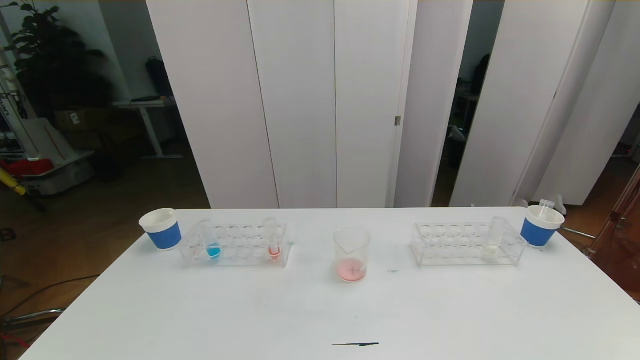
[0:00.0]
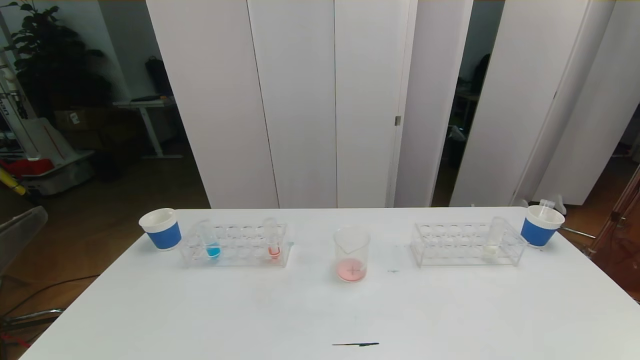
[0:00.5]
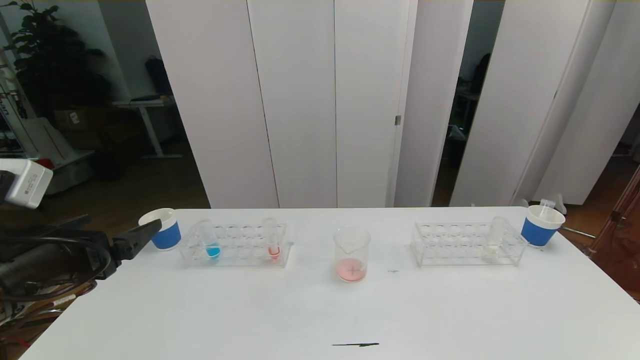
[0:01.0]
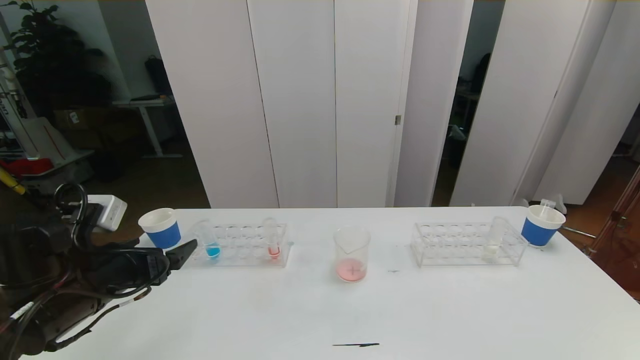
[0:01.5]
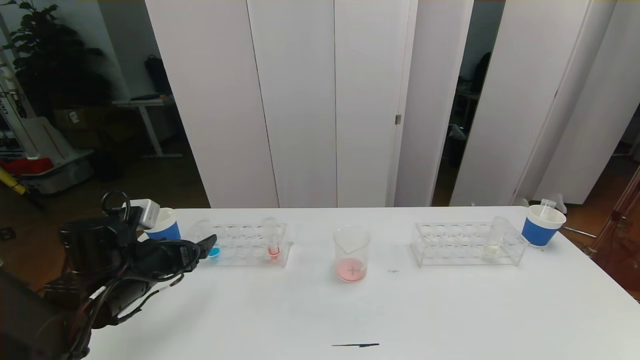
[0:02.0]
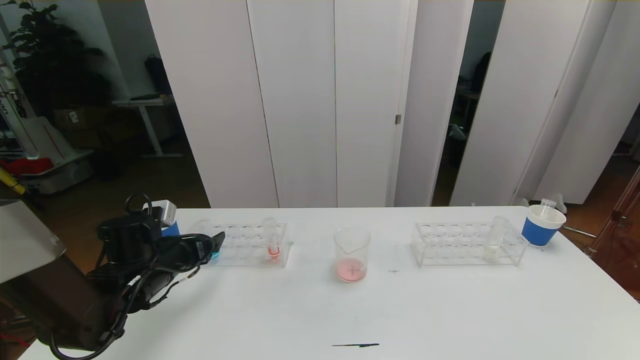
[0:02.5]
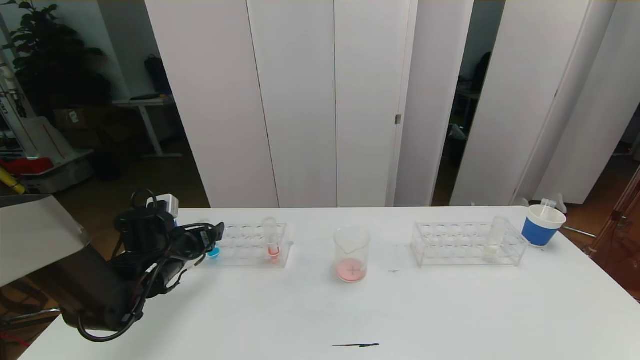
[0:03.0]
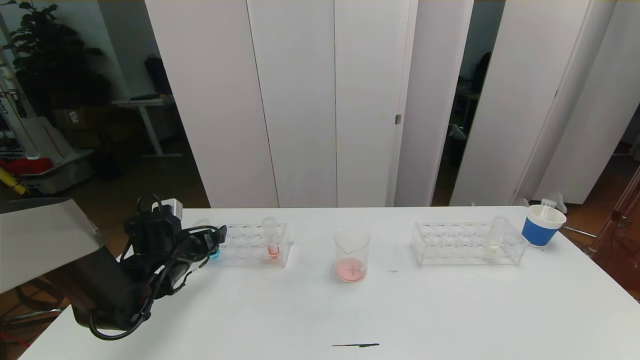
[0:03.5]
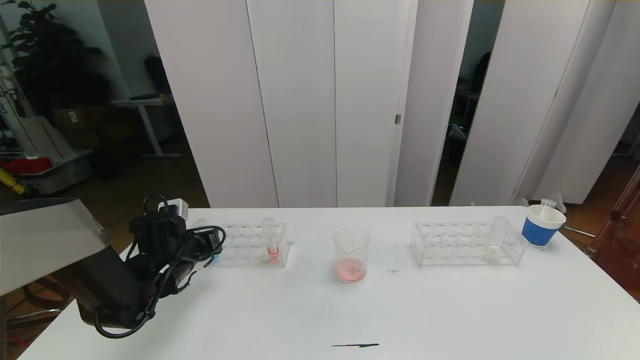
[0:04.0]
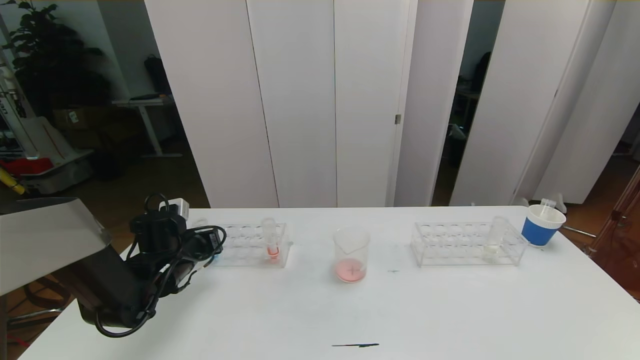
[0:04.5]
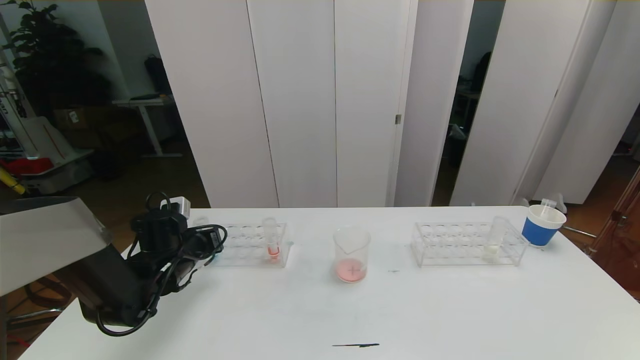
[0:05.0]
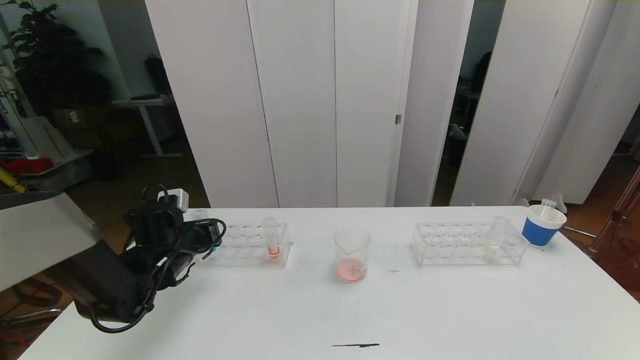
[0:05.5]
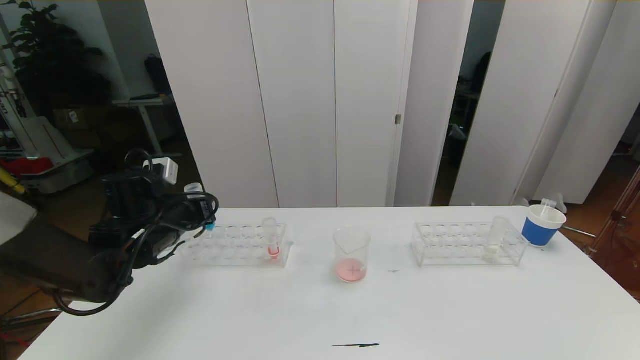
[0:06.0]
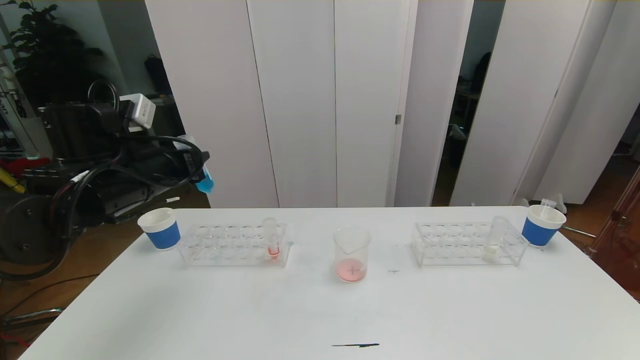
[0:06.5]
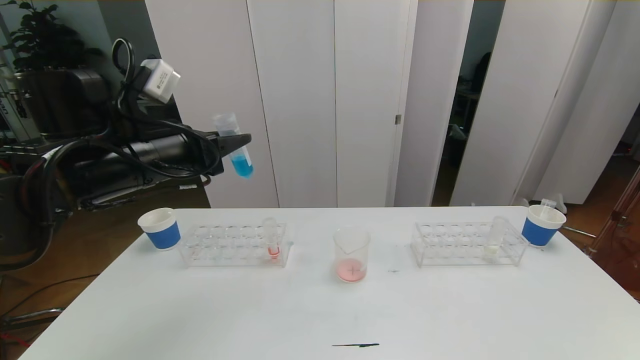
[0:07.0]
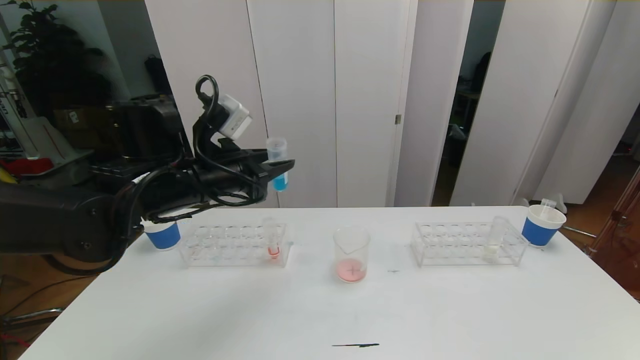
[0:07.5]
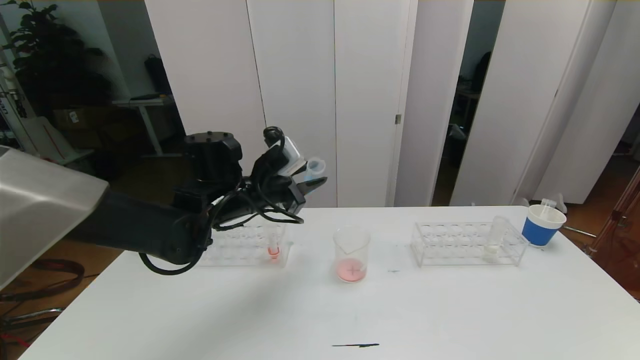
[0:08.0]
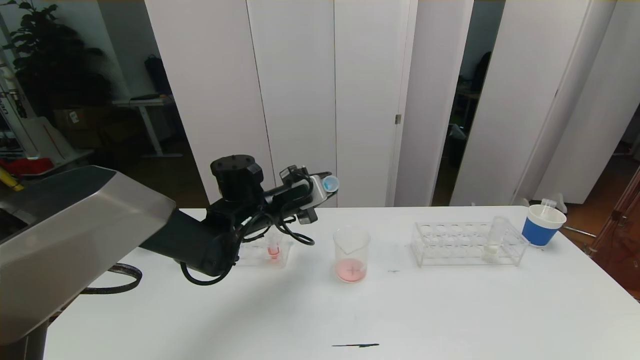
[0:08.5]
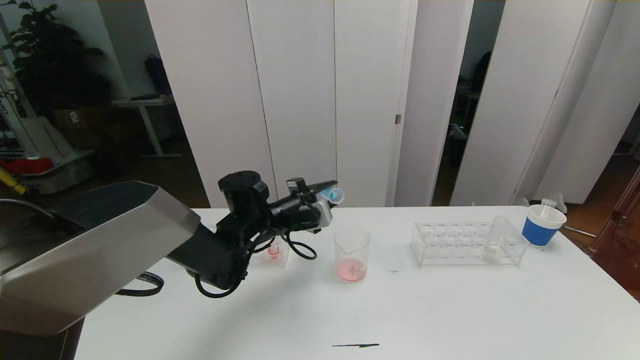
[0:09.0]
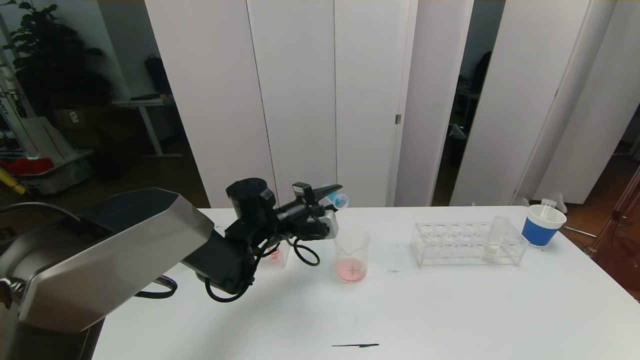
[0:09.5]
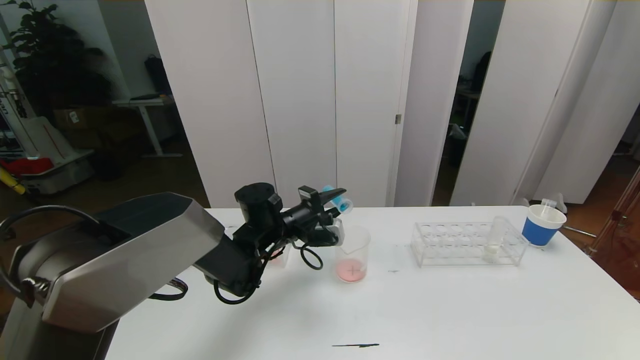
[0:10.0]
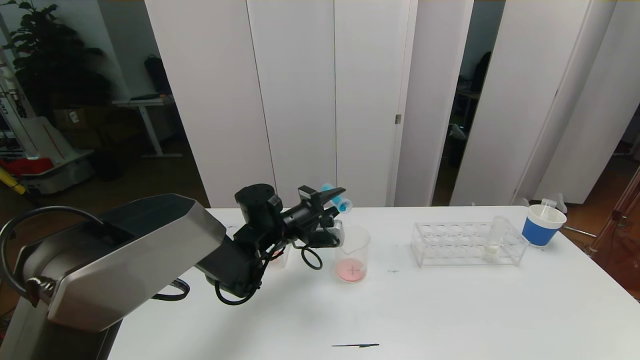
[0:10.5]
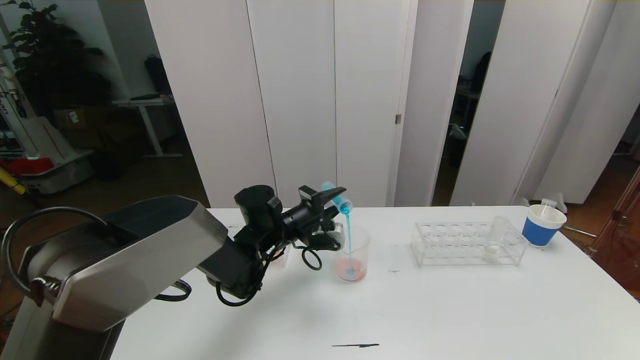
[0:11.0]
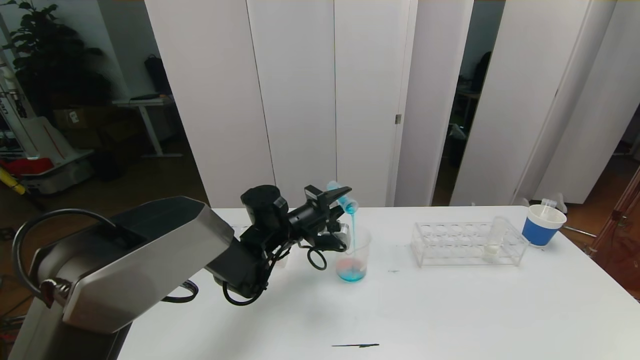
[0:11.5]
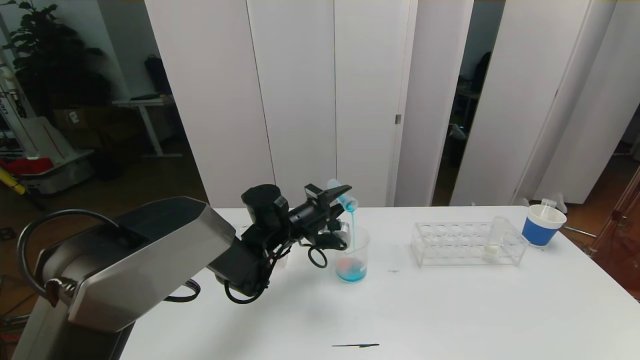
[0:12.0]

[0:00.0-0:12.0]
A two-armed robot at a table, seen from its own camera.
Task of the whole recording: pick up the test tube with red pigment the test tube with blue pigment and the test tube with white pigment by grippers and pour them into the beaker.
0:00.0 to 0:02.0: The left gripper goes approximately 35 cm forward and downward.
0:02.0 to 0:04.0: The left gripper is displaced forward by some 5 cm, and closes up.
0:04.0 to 0:06.0: The left gripper heads upward, covering approximately 10 cm.
0:06.0 to 0:08.0: The left gripper heads to the right, covering roughly 15 cm.
0:08.0 to 0:10.0: The left gripper is displaced downward by some 10 cm.
0:10.0 to 0:12.0: The grippers move only a little.

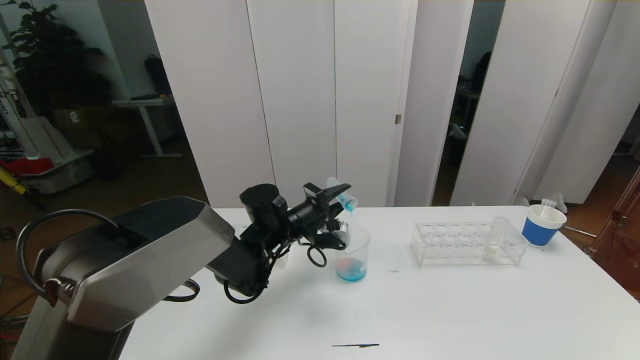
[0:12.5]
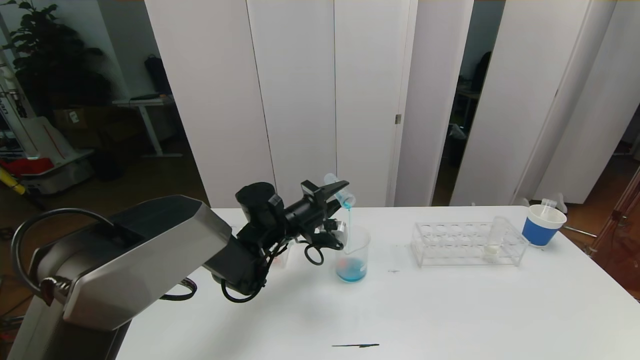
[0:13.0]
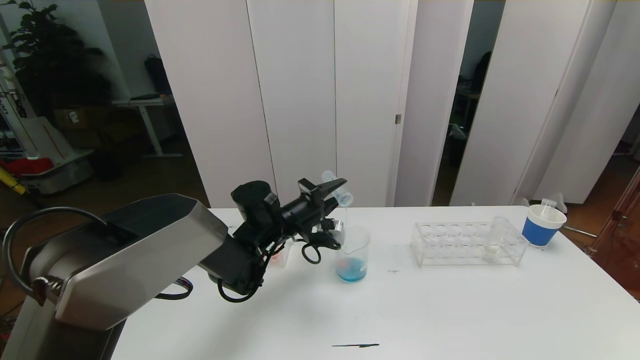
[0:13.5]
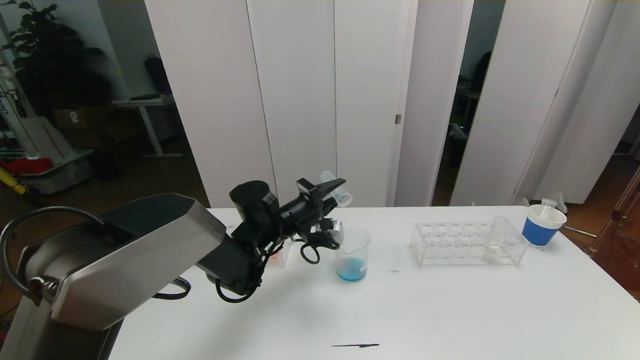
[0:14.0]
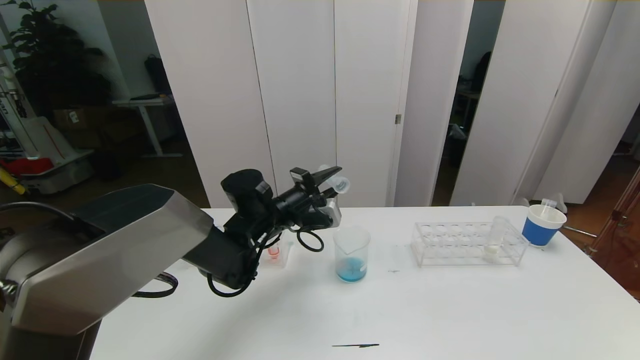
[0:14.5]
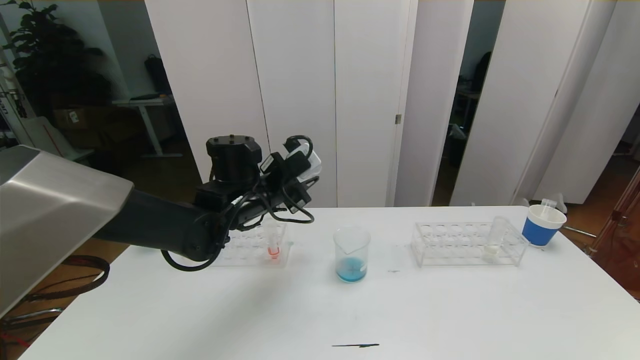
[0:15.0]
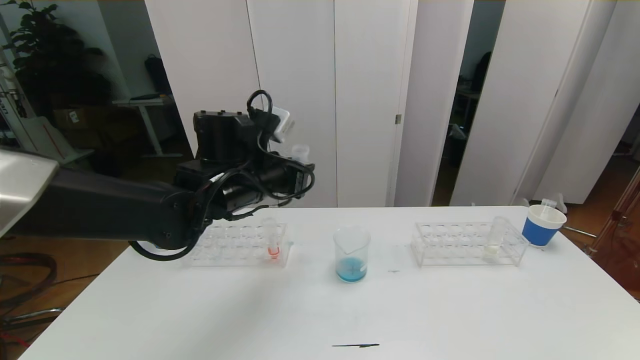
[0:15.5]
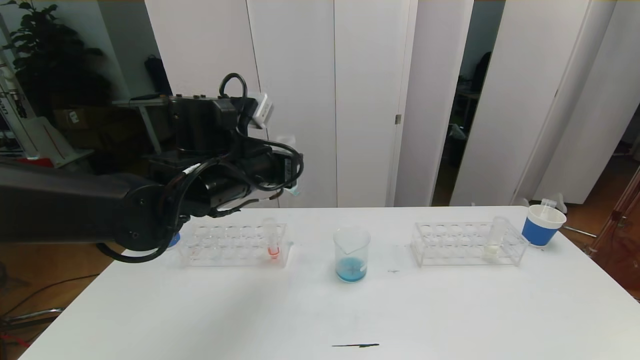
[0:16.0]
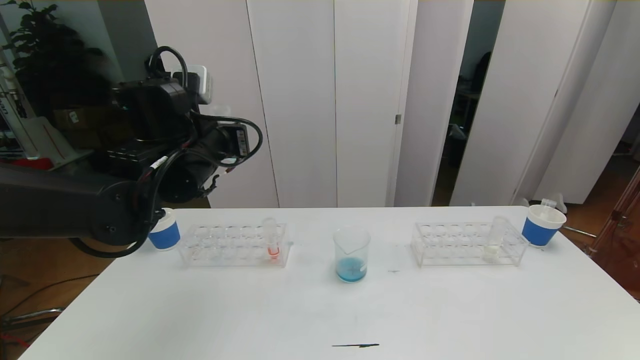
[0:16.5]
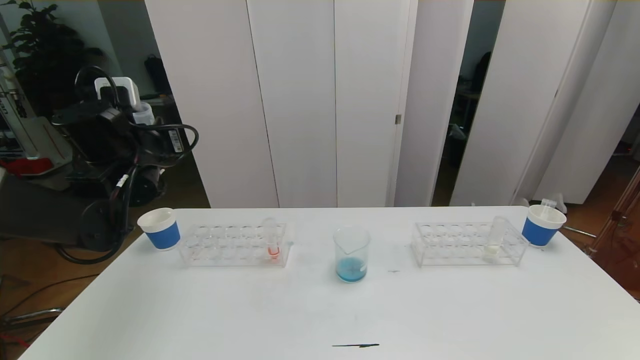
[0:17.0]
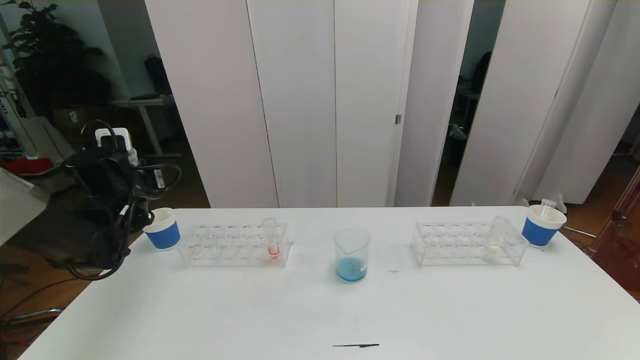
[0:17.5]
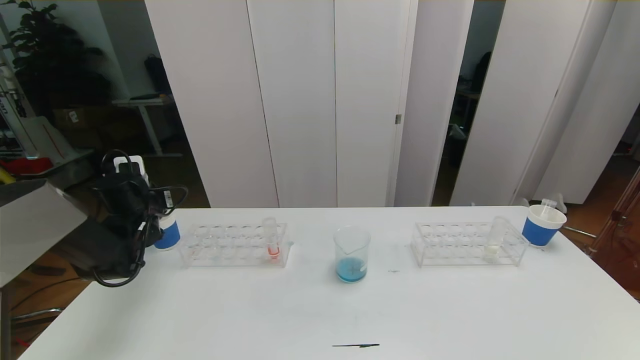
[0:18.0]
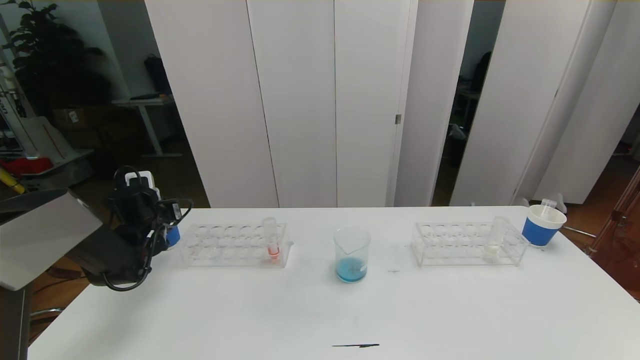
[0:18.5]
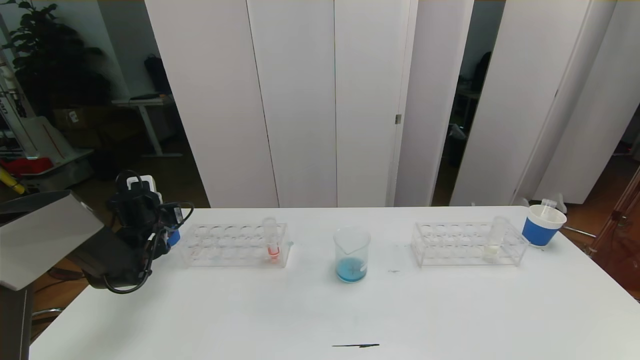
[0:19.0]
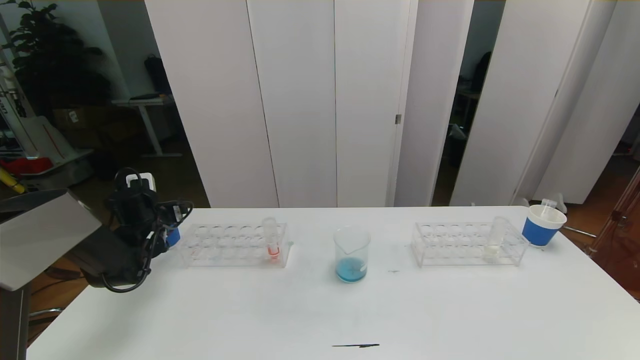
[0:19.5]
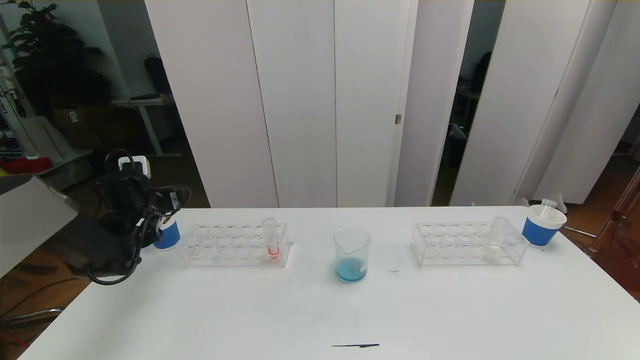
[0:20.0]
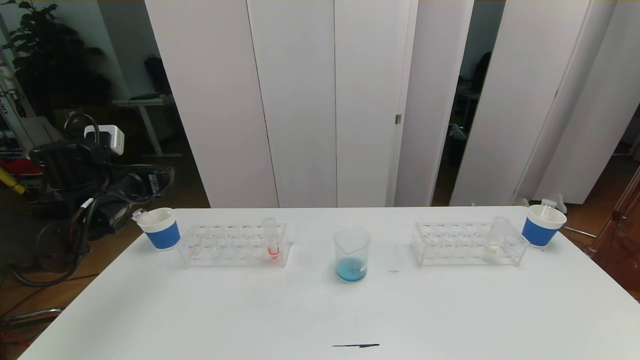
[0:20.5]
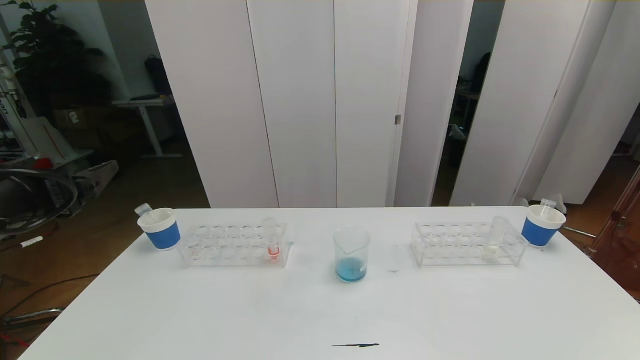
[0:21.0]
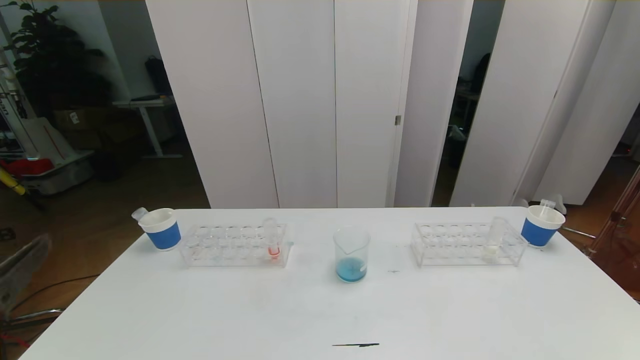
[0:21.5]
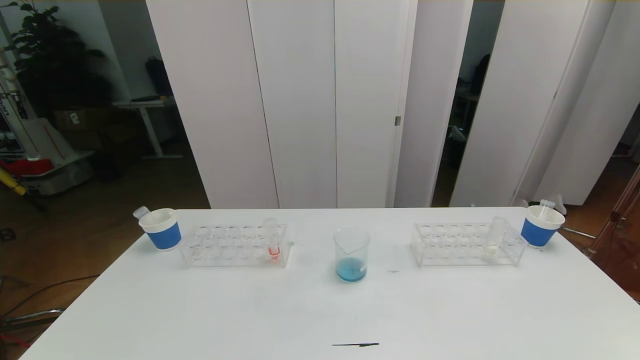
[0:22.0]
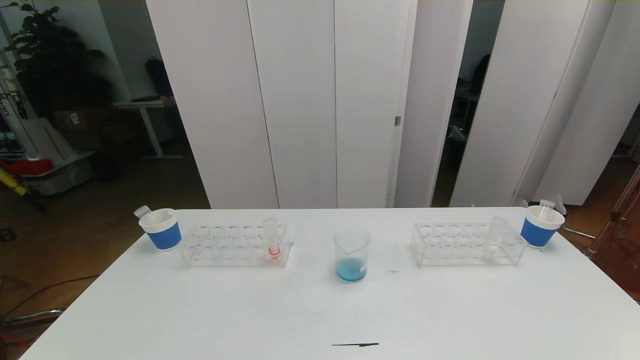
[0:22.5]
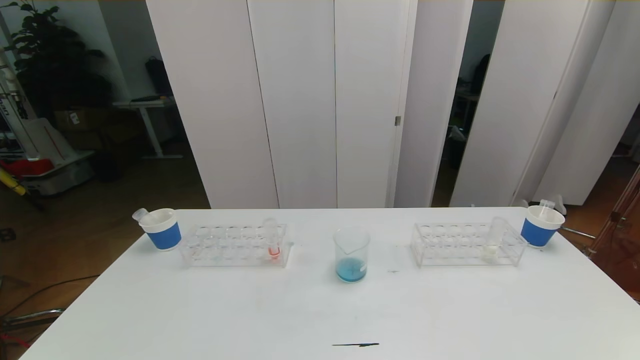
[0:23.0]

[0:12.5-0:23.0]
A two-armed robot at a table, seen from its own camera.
Task of the whole recording: pick up the test tube with red pigment the test tube with blue pigment and the test tube with white pigment by grippers and pour them into the beaker.
0:12.5 to 0:14.5: The grippers move only a little.
0:14.5 to 0:16.5: The left gripper goes about 15 cm upward, to the left and backward.
0:16.5 to 0:19.0: The left gripper moves downward, to the left and forward, some 25 cm.
0:19.0 to 0:21.0: The left gripper moves backward and upward, approximately 30 cm, and opens its fingers.
0:21.0 to 0:23.0: The left gripper is displaced backward and downward by roughly 25 cm.
